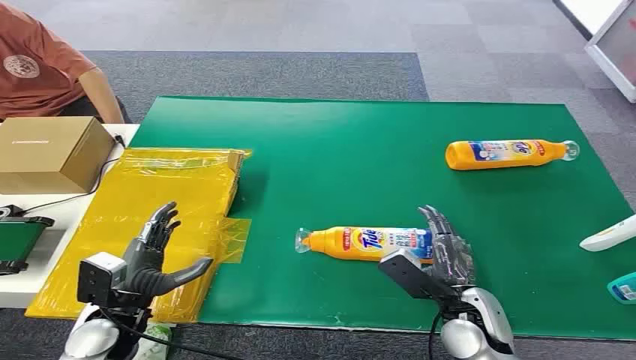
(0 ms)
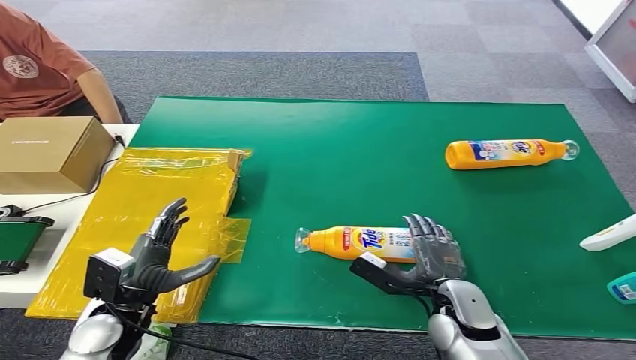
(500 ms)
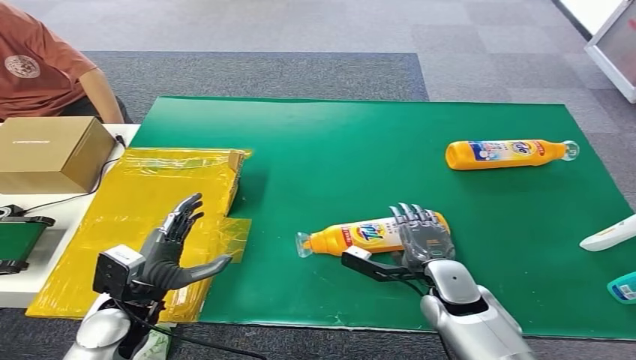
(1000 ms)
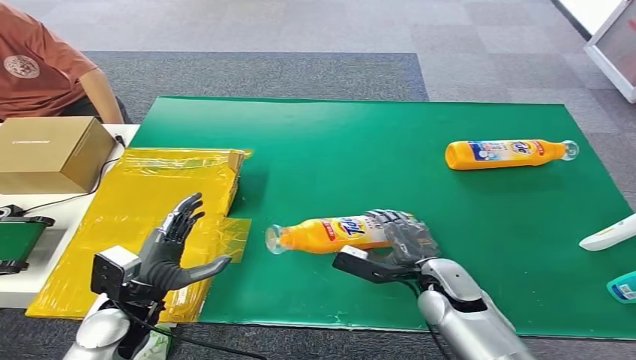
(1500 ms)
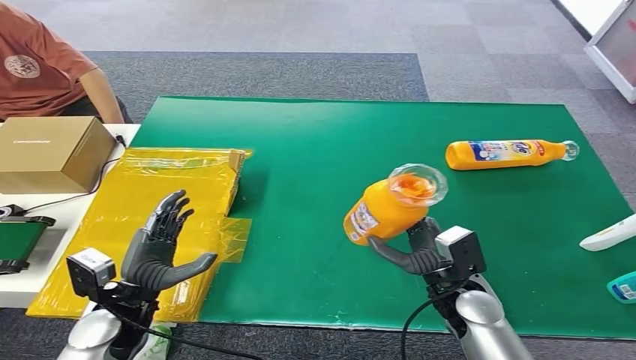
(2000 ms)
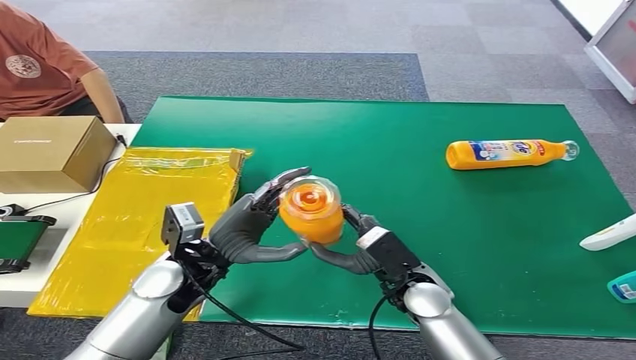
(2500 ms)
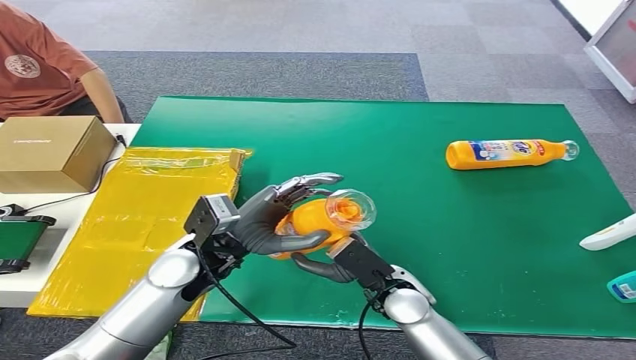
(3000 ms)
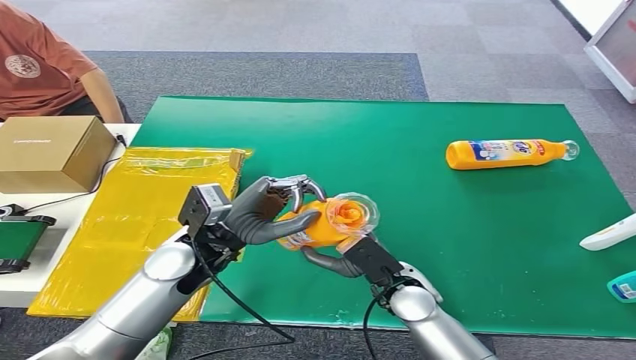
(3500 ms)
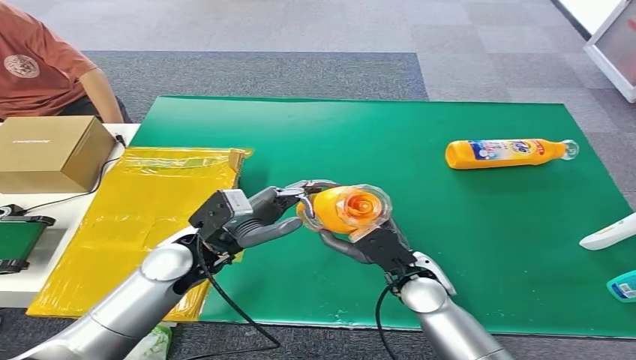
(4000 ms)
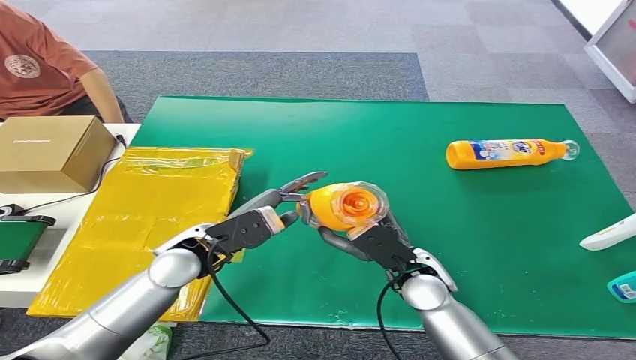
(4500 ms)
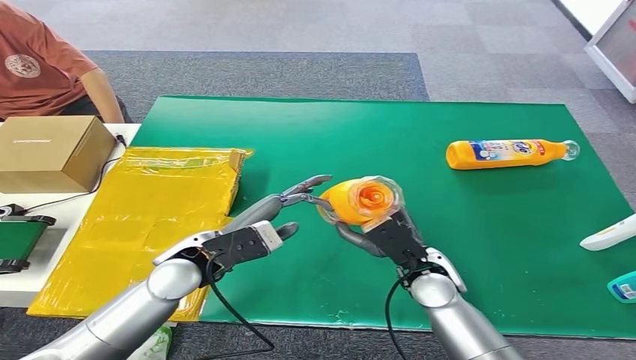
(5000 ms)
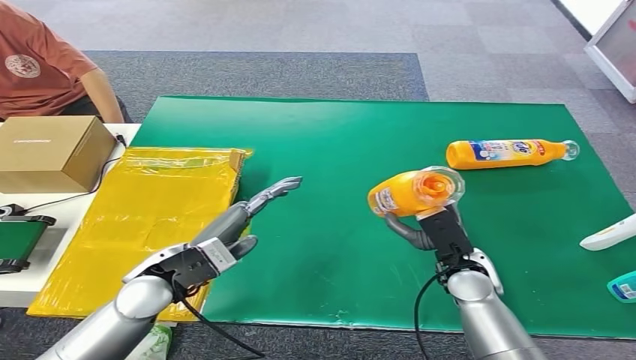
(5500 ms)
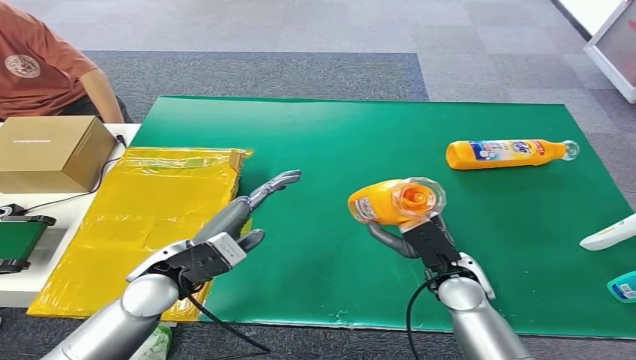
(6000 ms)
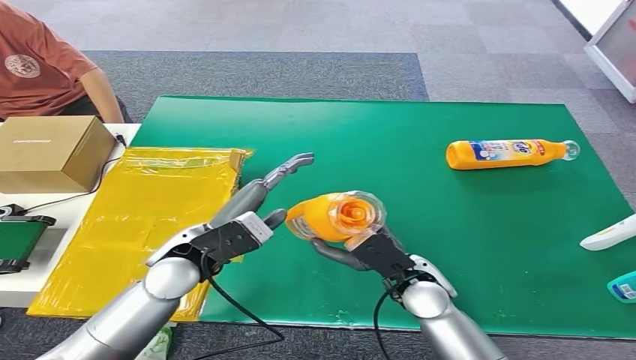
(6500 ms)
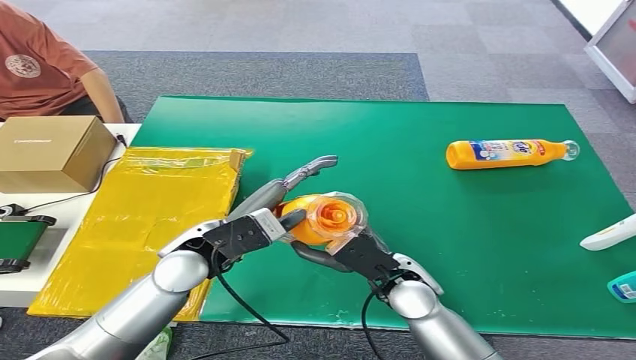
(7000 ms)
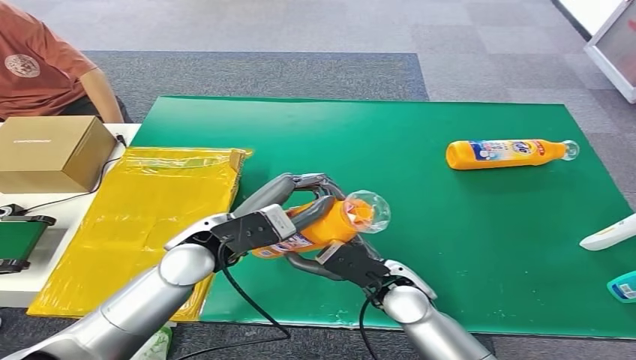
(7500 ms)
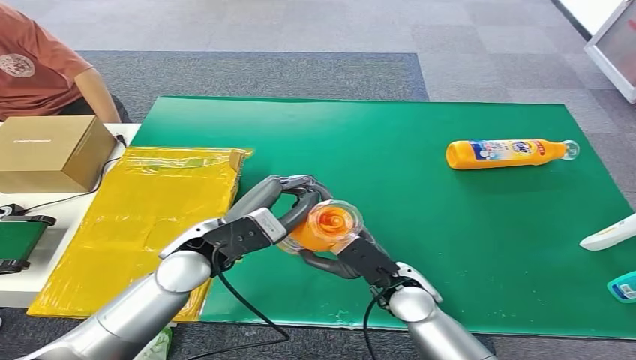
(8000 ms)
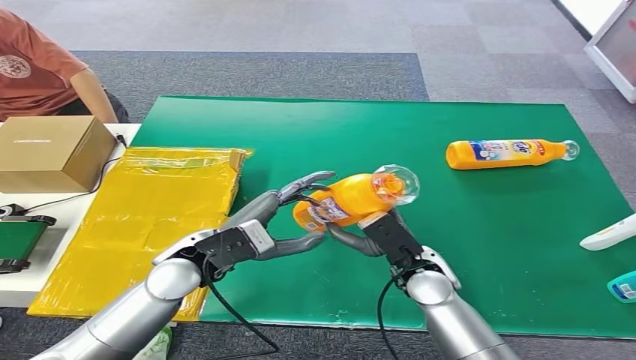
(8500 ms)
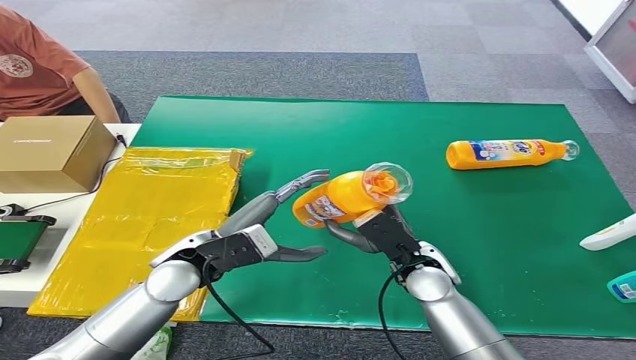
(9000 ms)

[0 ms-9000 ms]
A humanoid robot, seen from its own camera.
Step, 0 ms to 2000 ms: Pick up the bottle from the table.
2000 ms to 4500 ms: The left hand heads to the right, forward and upward, covering approximately 15 cm. Meanwhile the right hand travels to the left by some 5 cm.
4500 ms to 7000 ms: The right hand travels to the right and back again, roughly 5 cm each way.
7000 ms to 9000 ms: The hands make only small movements.

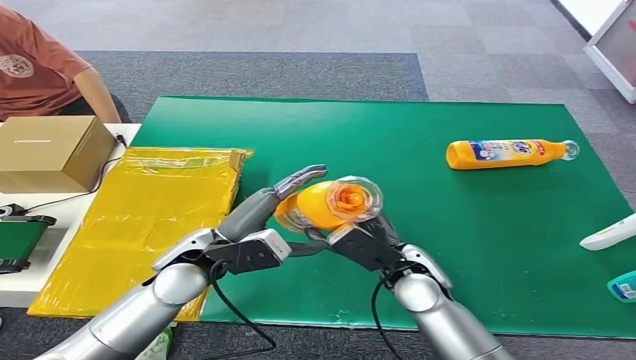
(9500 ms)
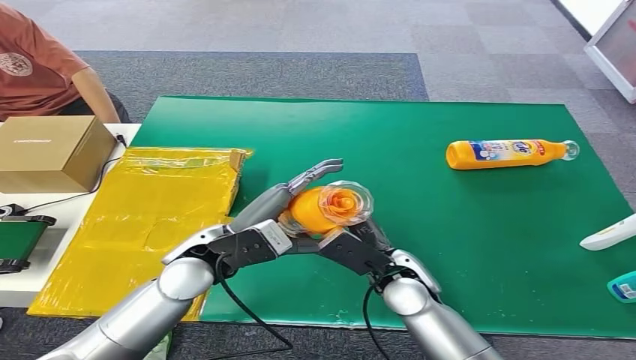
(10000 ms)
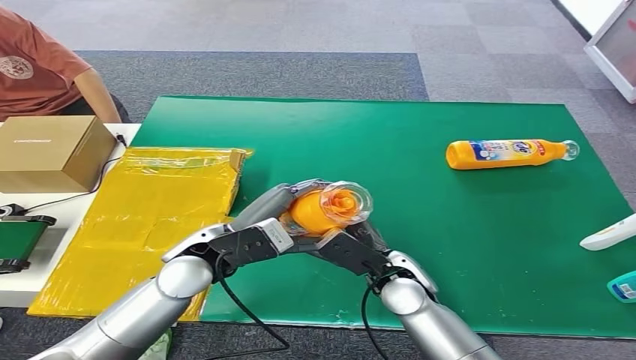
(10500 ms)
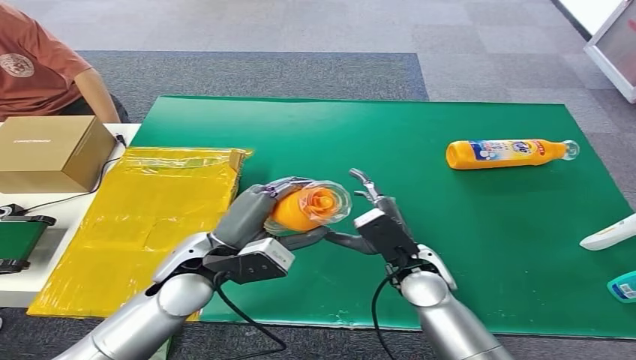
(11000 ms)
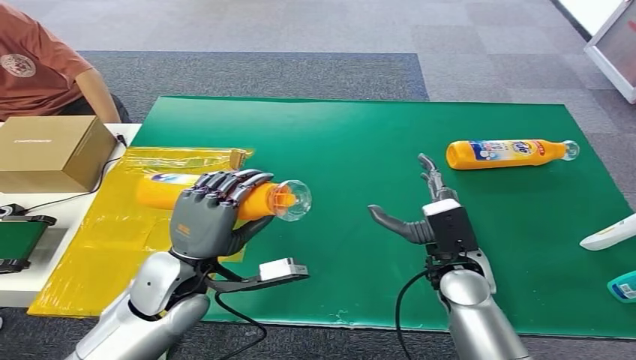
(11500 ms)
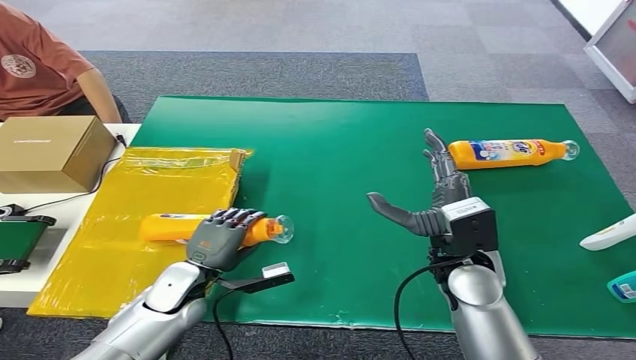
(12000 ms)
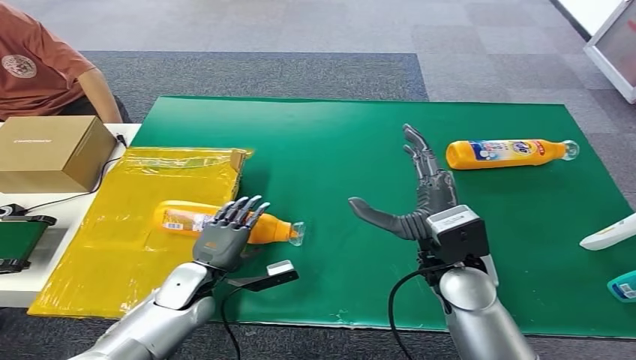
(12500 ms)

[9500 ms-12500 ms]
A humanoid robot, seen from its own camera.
Step, 9500 ms to 12500 ms: Turn the bottle to the front side.
9500 ms to 11000 ms: The hands move only a little.
11000 ms to 12500 ms: The right hand shifts roughly 10 cm upward. The left hand moves downward, approximately 15 cm.
